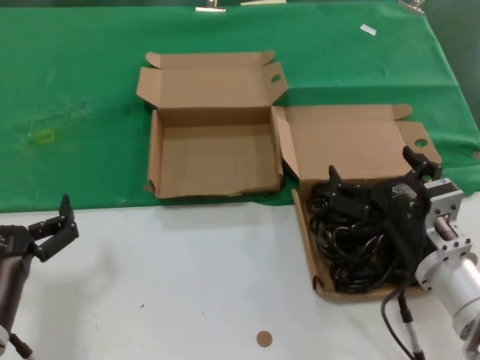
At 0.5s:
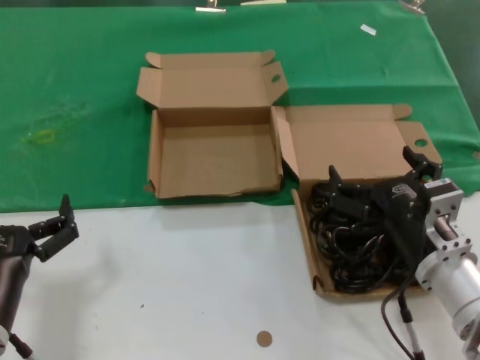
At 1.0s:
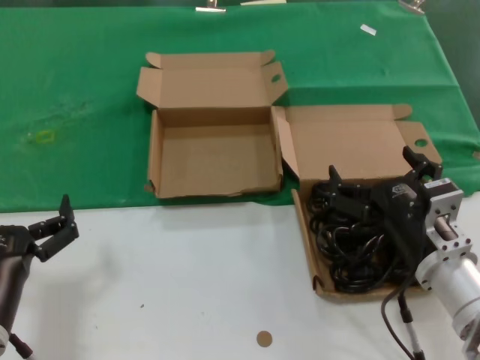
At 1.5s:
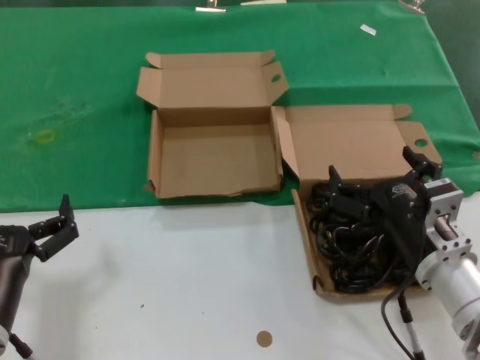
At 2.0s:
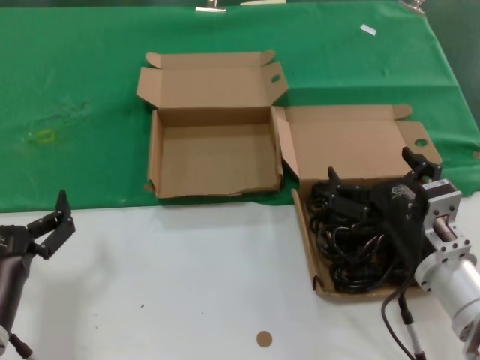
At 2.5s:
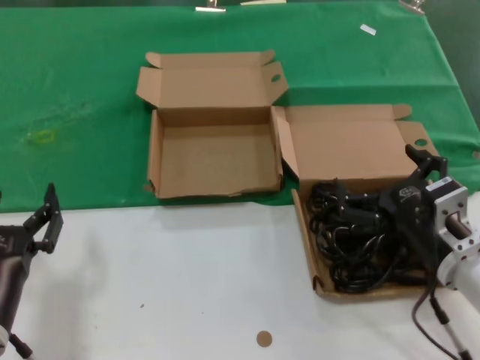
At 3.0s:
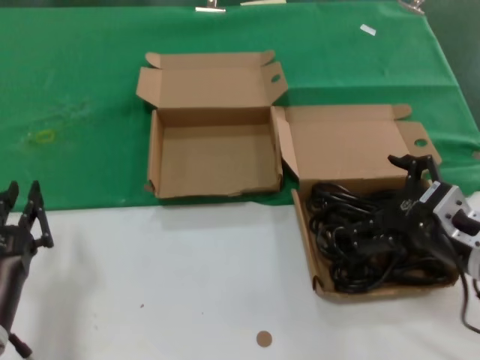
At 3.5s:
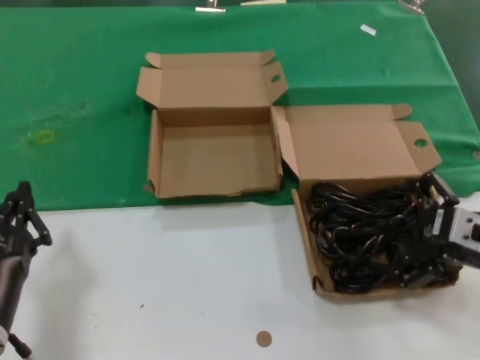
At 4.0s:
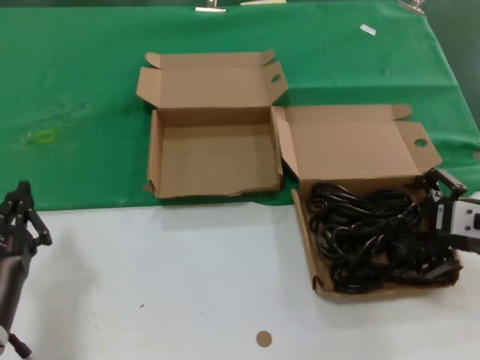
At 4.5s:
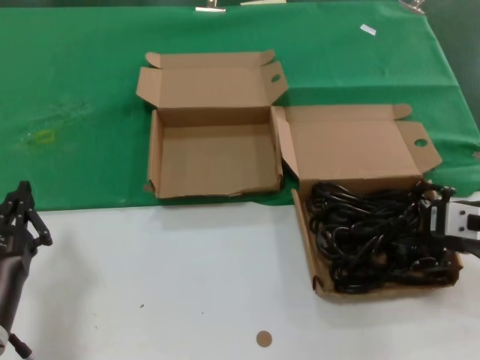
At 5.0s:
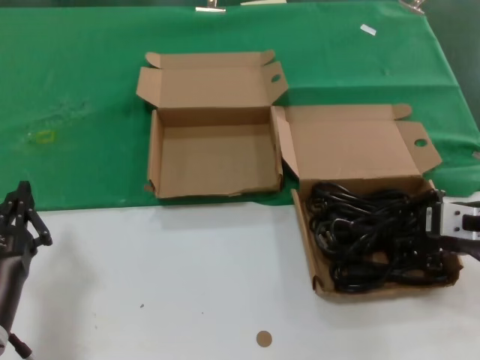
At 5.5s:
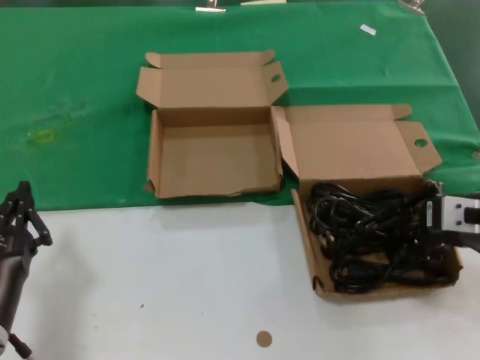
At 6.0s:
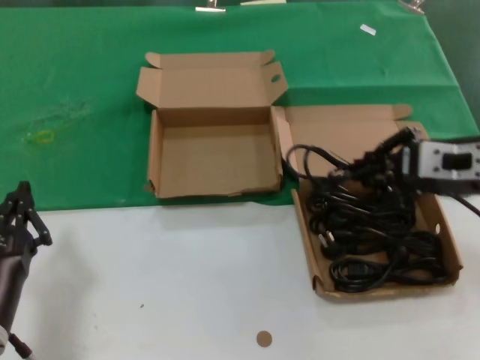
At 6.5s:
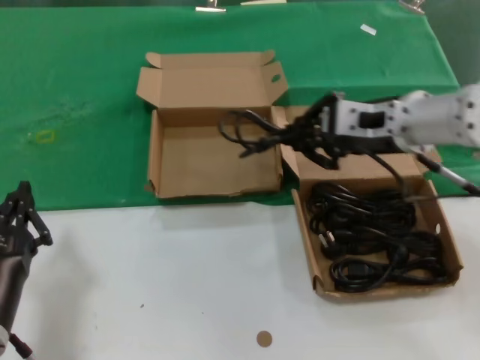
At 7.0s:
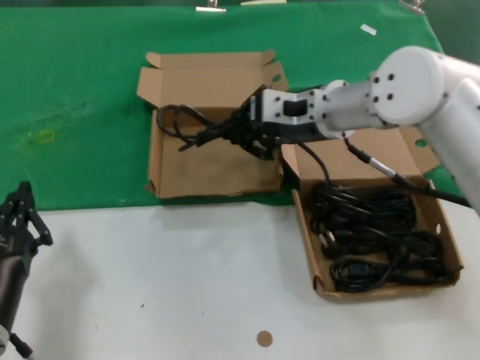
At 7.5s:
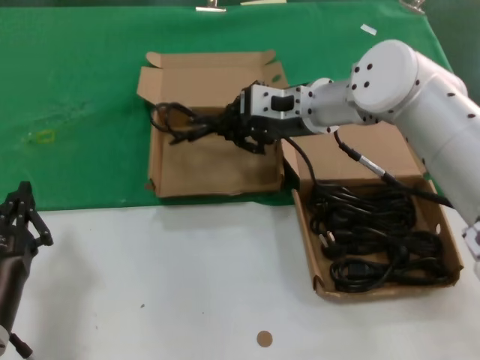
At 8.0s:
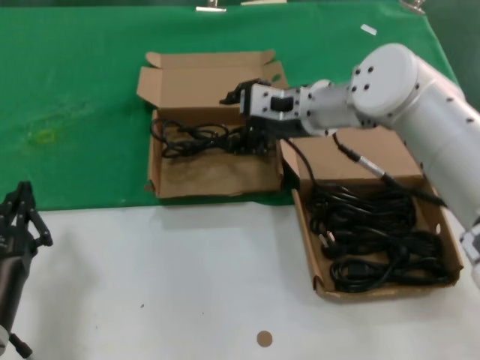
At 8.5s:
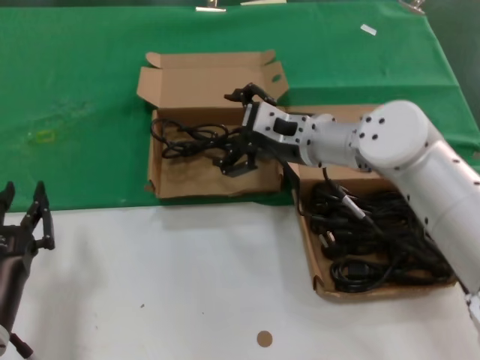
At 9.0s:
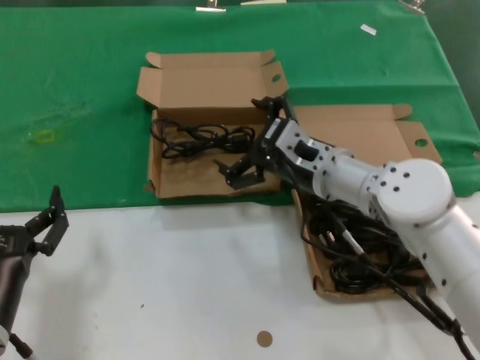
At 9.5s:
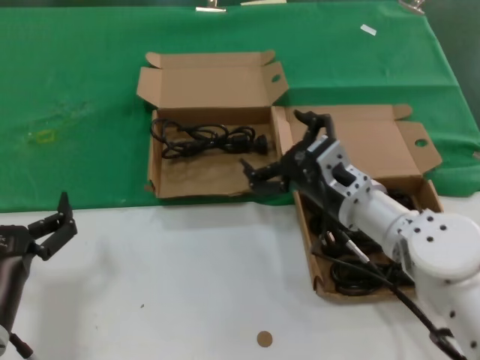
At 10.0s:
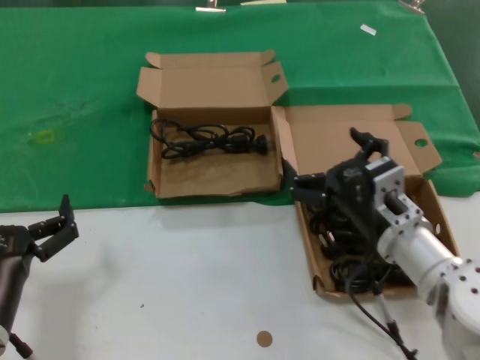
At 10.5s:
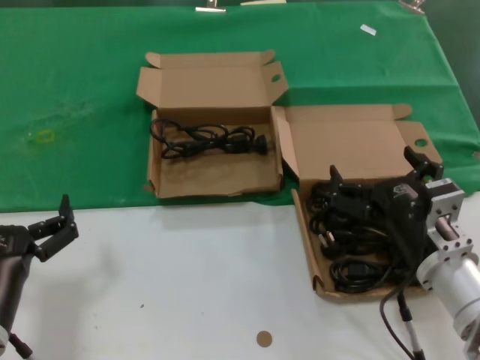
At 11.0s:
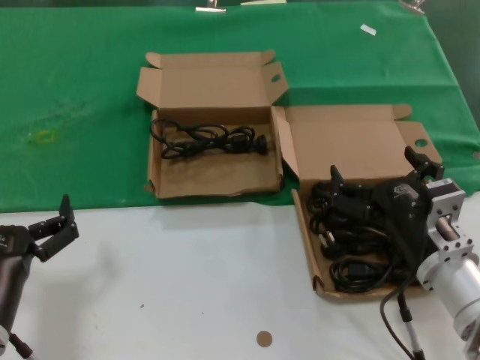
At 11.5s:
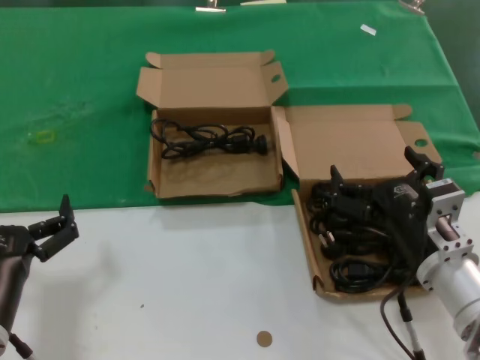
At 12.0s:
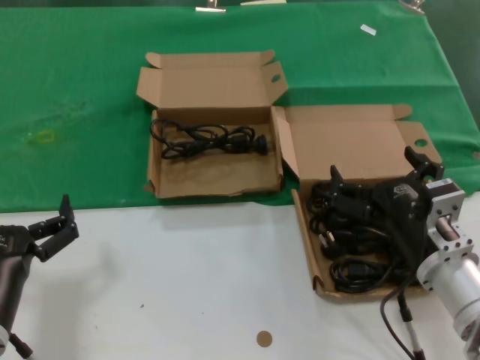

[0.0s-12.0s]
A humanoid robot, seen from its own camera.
Task of the whole recording: take the parts from the box containing them and put them into an empty box.
Step, 0.0s to 5.0s: Grasp the data cable.
Step, 5.5s to 7.5s: Place the data cable in the another box.
0.0s to 2.0s: Both hands stay about where they are.
2.0s to 4.0s: The right hand moves to the right and upward, about 15 cm.
4.0s to 6.0s: The right hand travels upward by approximately 5 cm.
6.0s to 8.0s: The right hand is displaced forward and to the left by some 25 cm.
8.0s to 10.0s: The right hand heads backward and downward, covering some 25 cm.
10.0s to 12.0s: The right hand shifts some 5 cm backward.

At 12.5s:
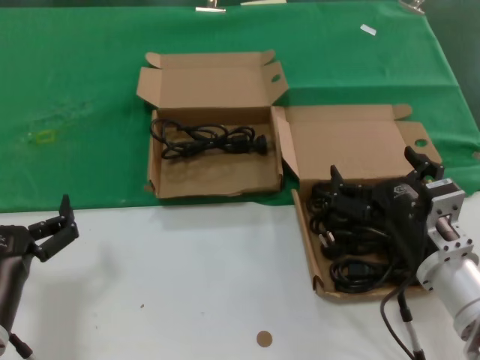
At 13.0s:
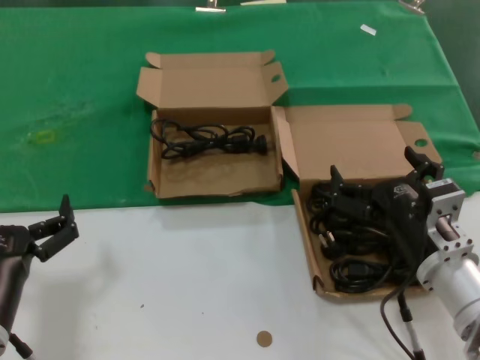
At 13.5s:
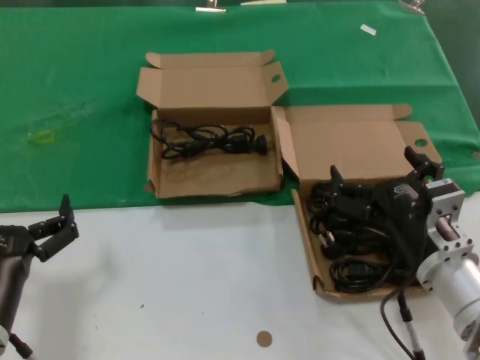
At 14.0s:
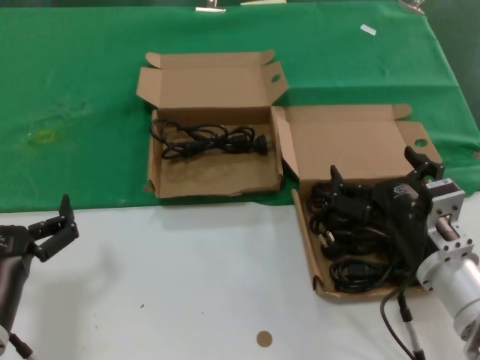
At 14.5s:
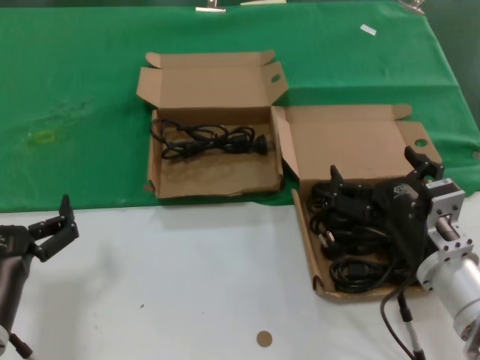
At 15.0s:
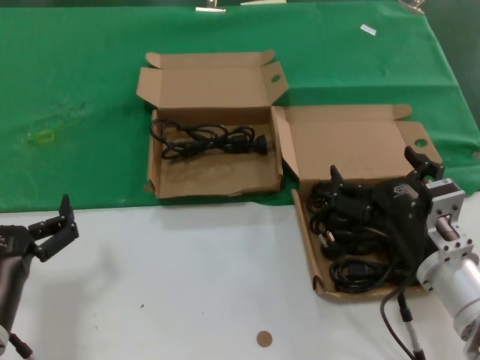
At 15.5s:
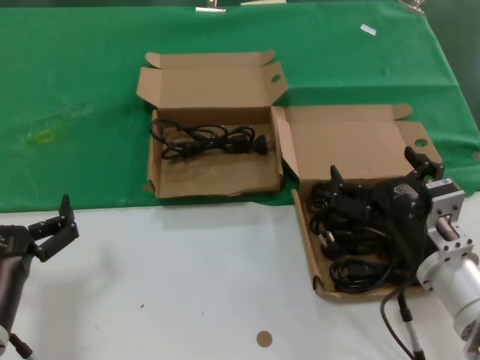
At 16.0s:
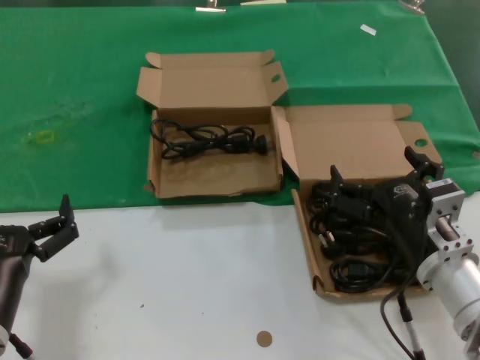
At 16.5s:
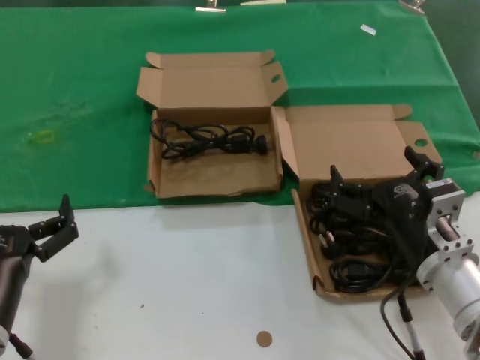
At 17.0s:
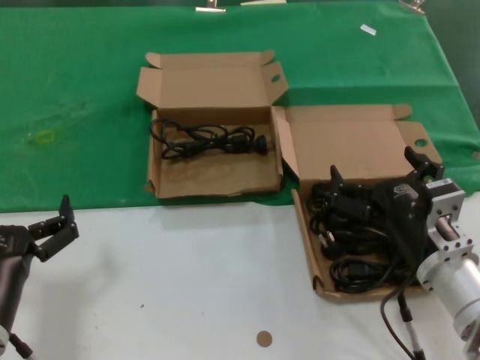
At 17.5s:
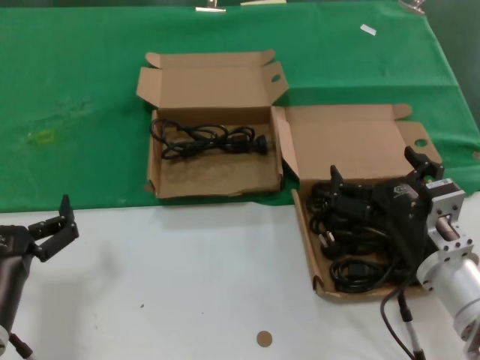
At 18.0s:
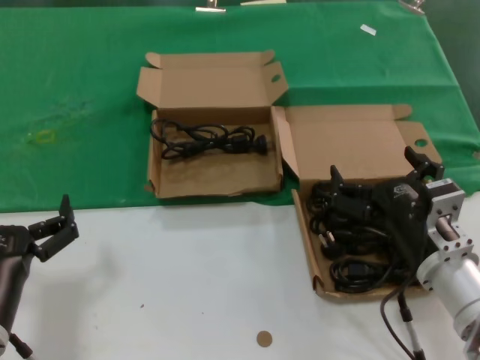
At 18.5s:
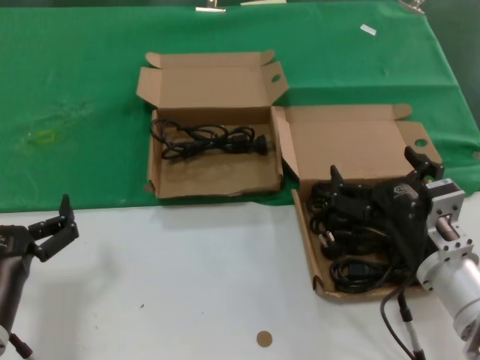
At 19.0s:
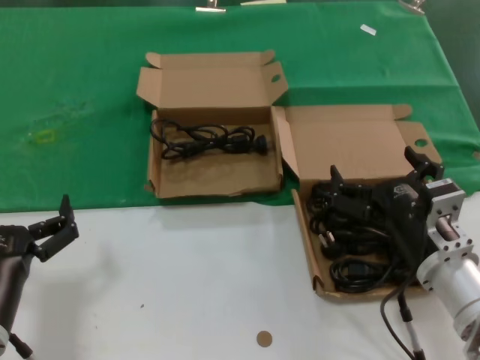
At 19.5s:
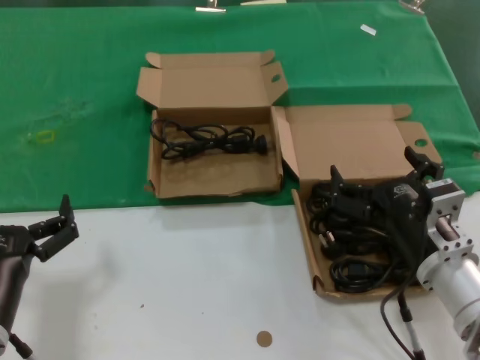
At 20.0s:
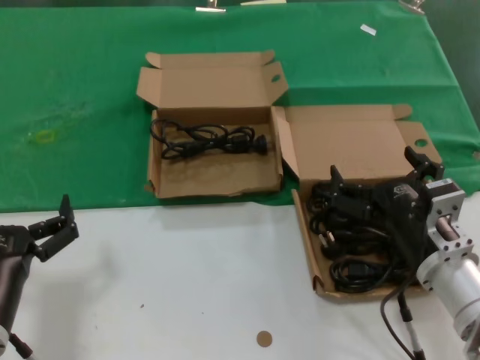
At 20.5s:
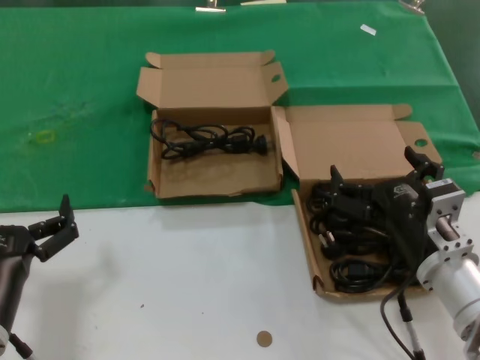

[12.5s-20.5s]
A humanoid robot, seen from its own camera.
Task of the whole recording: take the parts from the box containing them and put them into an empty box.
12.5s to 20.5s: Neither hand changes place.

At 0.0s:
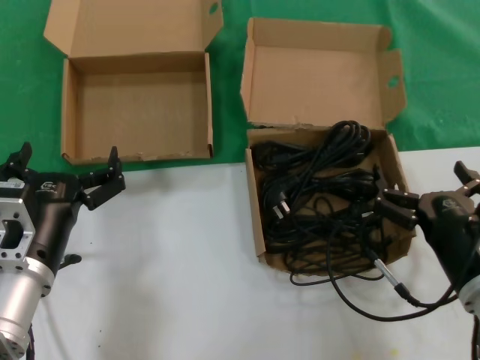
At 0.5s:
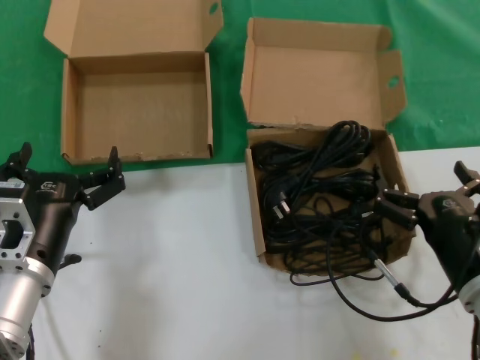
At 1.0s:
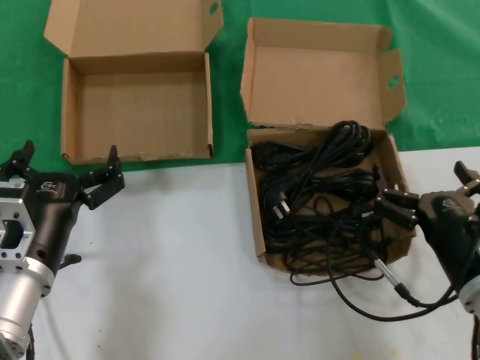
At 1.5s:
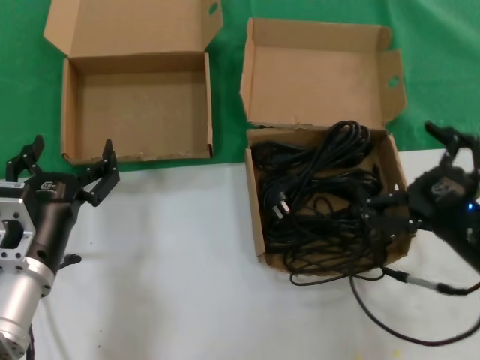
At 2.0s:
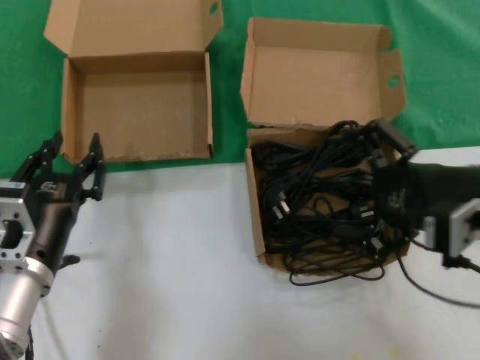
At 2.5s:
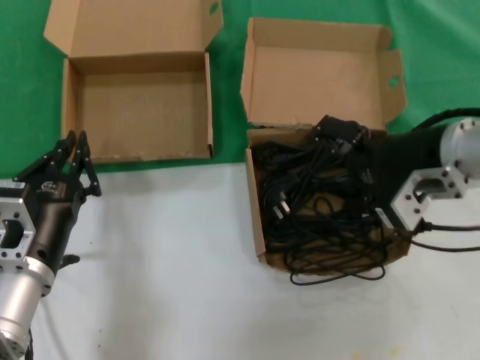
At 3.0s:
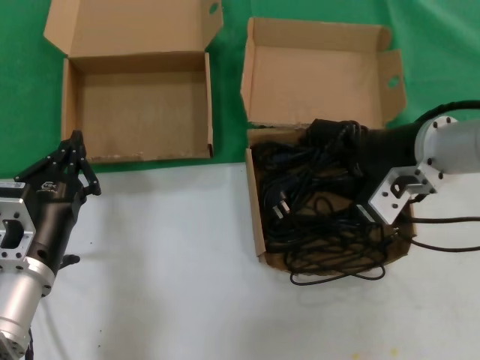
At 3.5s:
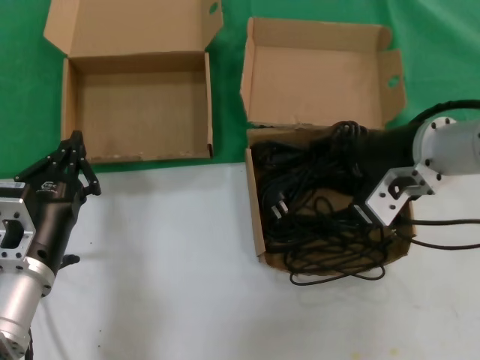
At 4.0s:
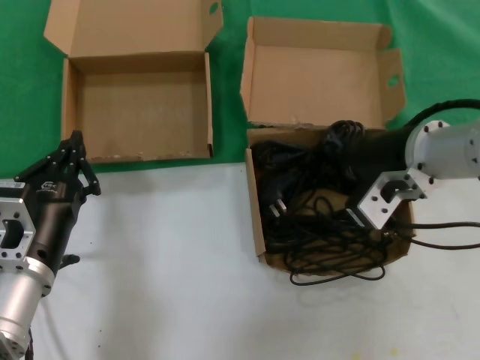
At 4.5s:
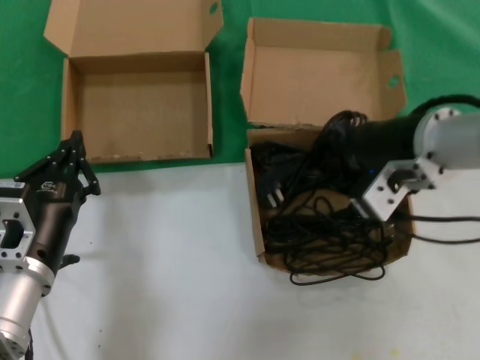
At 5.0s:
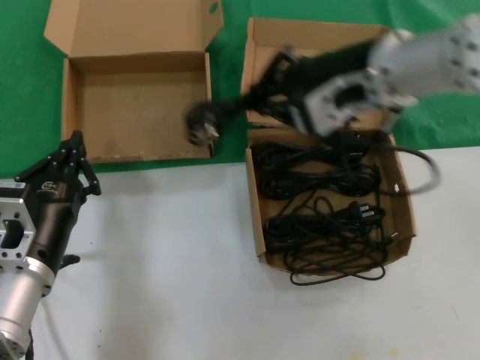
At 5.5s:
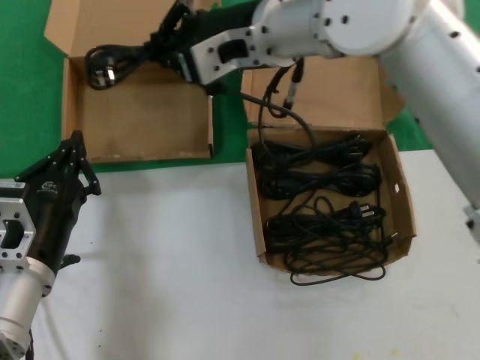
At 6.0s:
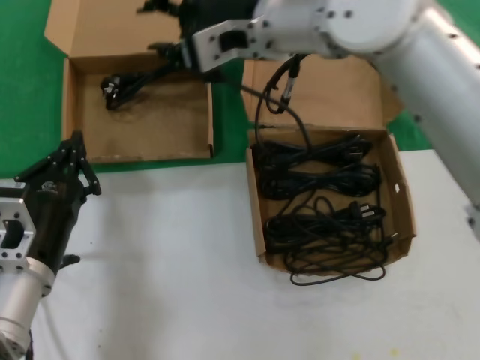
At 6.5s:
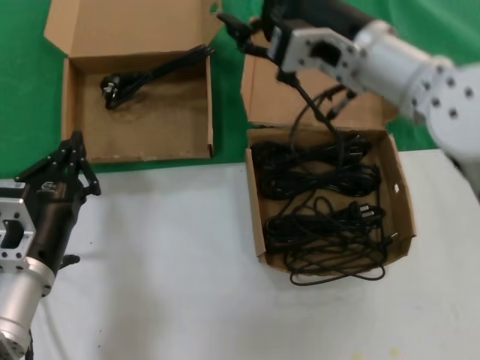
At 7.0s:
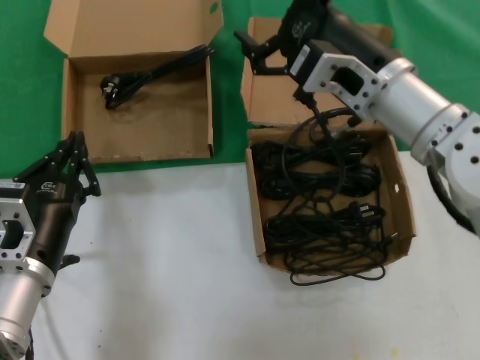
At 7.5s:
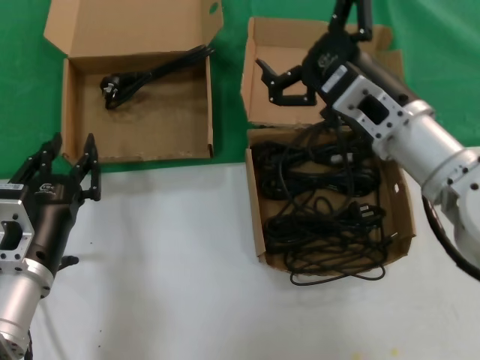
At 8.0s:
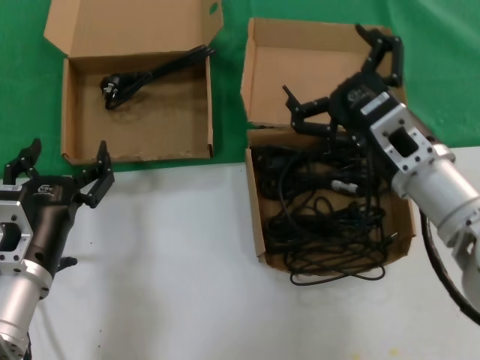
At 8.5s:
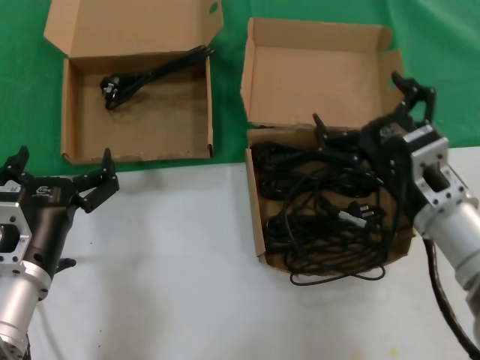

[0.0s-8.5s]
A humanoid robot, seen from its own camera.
Task of the whole recording: take the parts from the box containing them and put them into an empty box.
Step, 0.0s to 3.5s: Grasp the data cable.
Step, 4.0s to 5.5s: Place the data cable in the another box.
0.0s to 2.0s: The right hand shifts some 15 cm upward.
2.0s to 4.0s: The right hand shifts some 10 cm forward and to the left.
4.0s to 6.5s: The right hand travels to the left by some 5 cm.
6.5s to 8.5s: The right hand is displaced downward, backward and to the right by some 20 cm.
